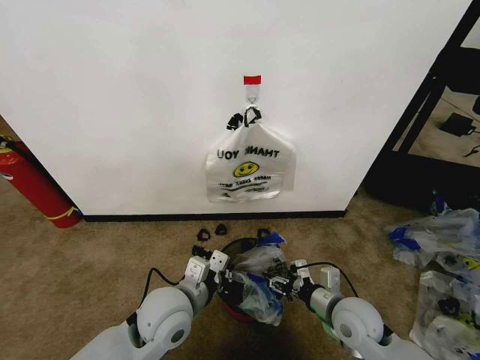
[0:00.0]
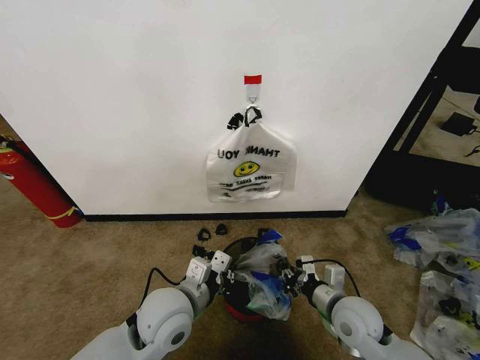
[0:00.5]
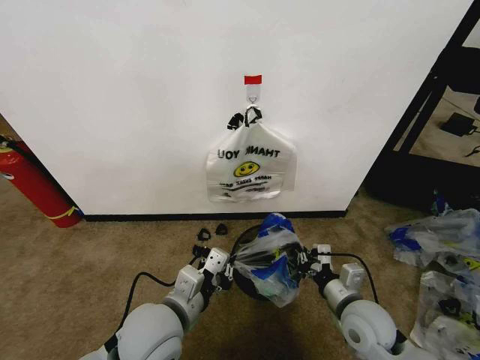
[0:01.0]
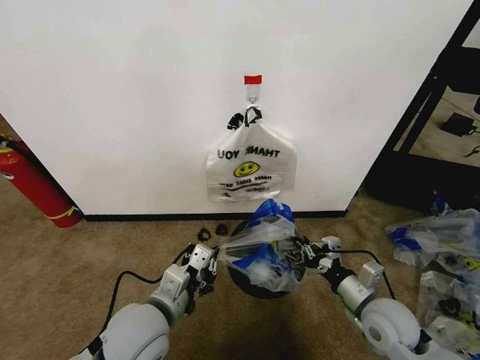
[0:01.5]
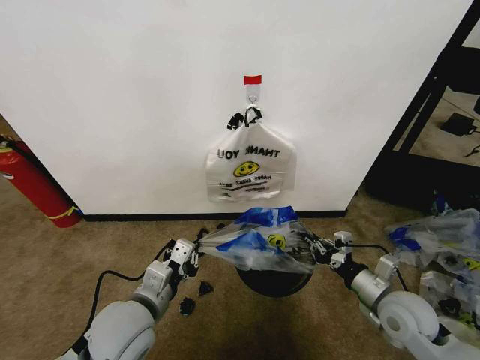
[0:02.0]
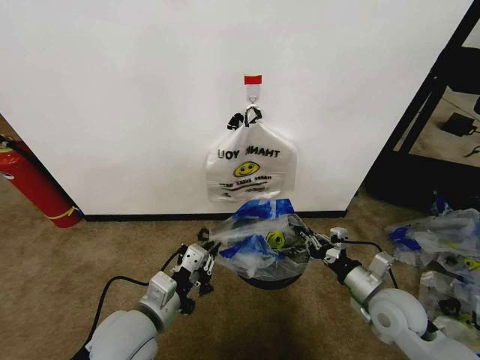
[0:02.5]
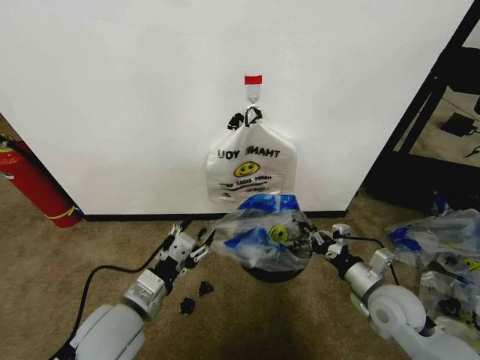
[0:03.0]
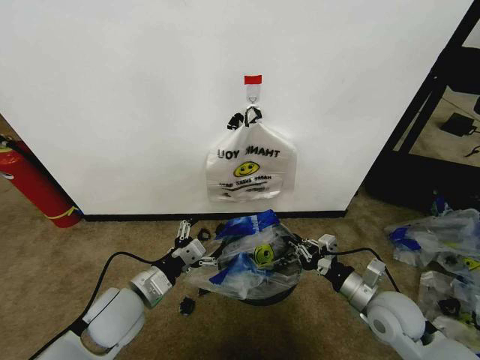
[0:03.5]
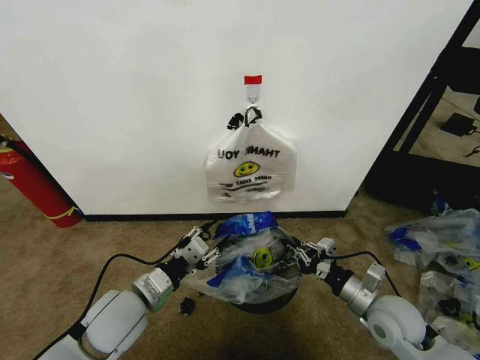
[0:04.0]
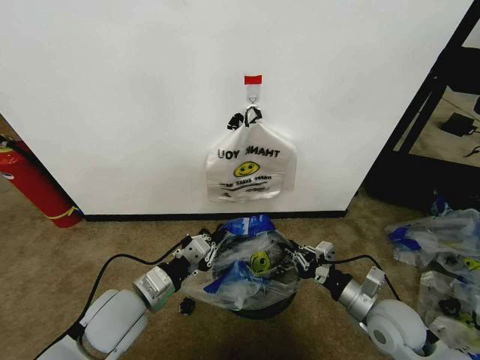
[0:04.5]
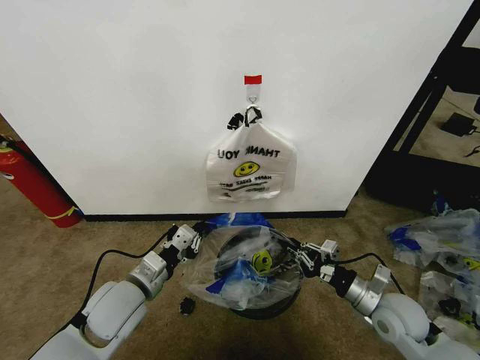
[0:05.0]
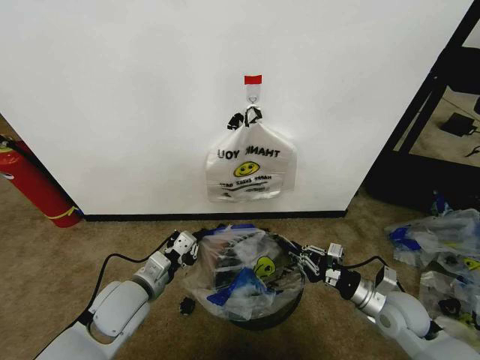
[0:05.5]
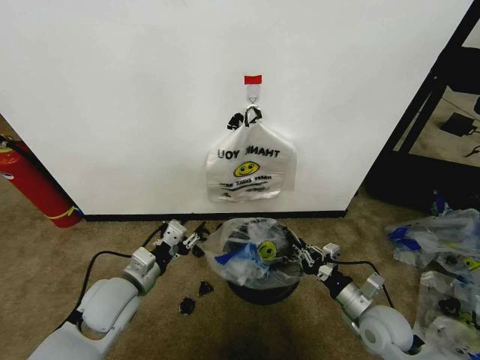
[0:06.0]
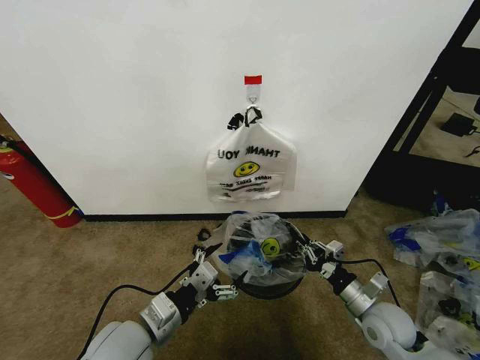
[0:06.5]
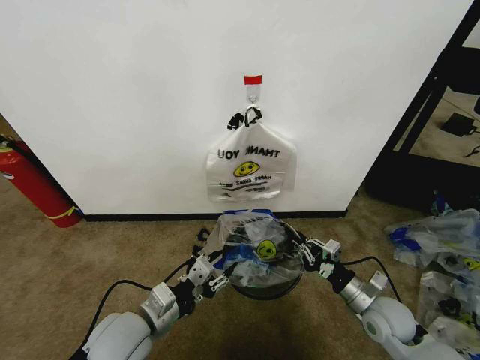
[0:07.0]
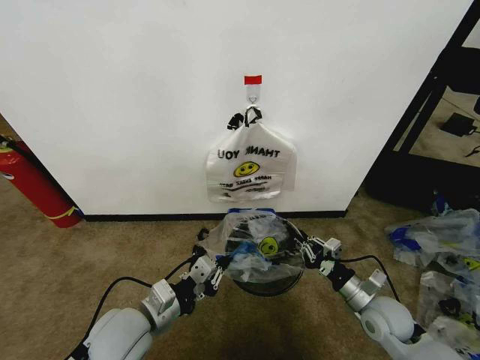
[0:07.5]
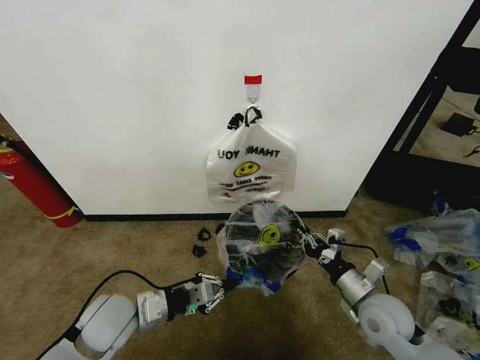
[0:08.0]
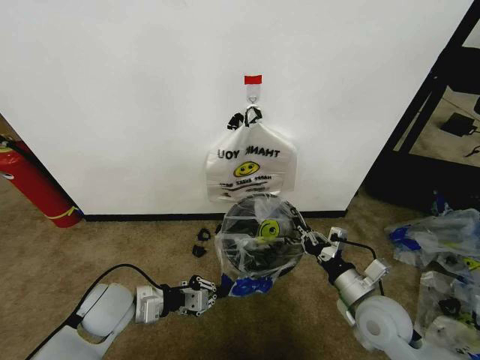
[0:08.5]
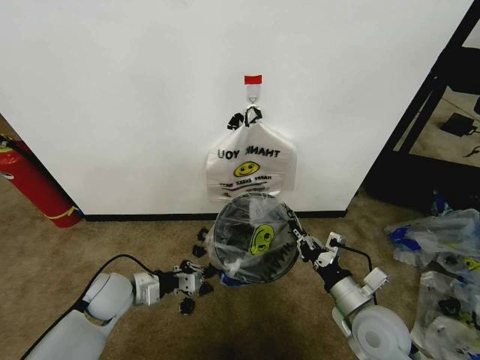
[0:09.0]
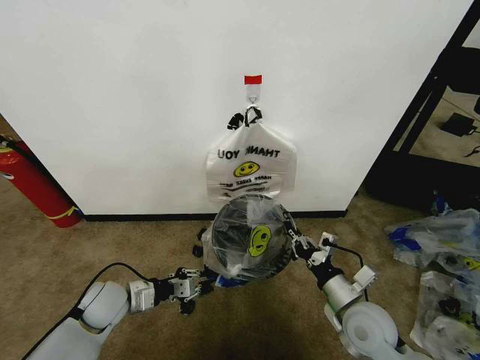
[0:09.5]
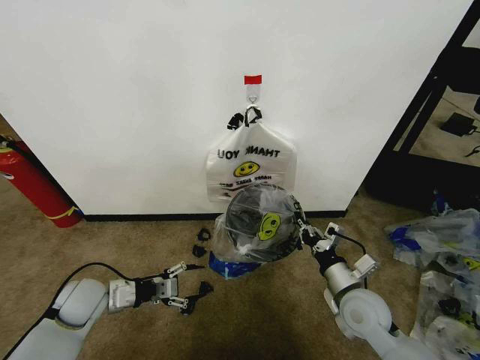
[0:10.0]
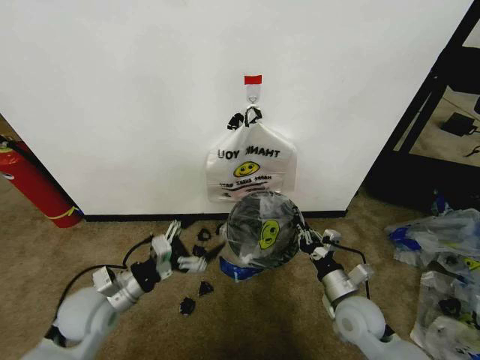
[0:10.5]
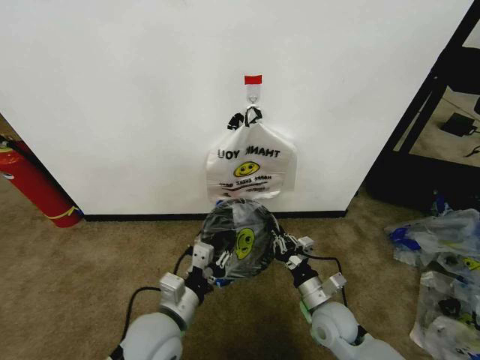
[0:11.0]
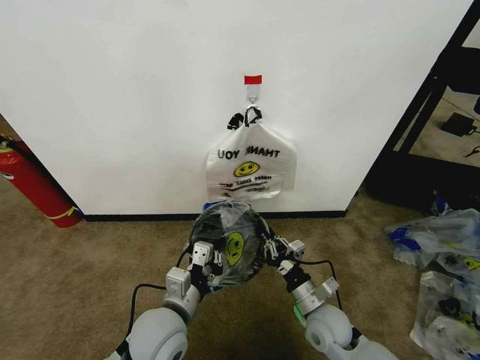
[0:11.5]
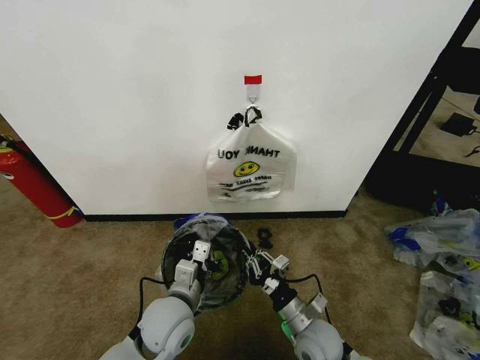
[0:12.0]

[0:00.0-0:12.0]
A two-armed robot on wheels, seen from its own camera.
Task of the whole recording: Pick up the garbage bag from the wall and place it over the trash bin.
0:00.0 to 0:02.0: The left gripper is displaced to the left by about 5 cm. The right gripper moves to the right, approximately 10 cm, and closes its fingers.
0:02.0 to 0:04.0: The left gripper opens its fingers.
0:04.0 to 0:06.0: The left gripper closes, then reopens.
0:06.0 to 0:08.0: The left gripper travels backward and back again, some 10 cm each way, and closes up.
0:08.0 to 0:10.0: The left gripper heads to the left and forward, covering about 10 cm, and opens.
0:10.0 to 0:12.0: The left gripper is displaced to the right by about 20 cm, and closes. Meanwhile the right gripper goes roughly 10 cm to the left and downward.

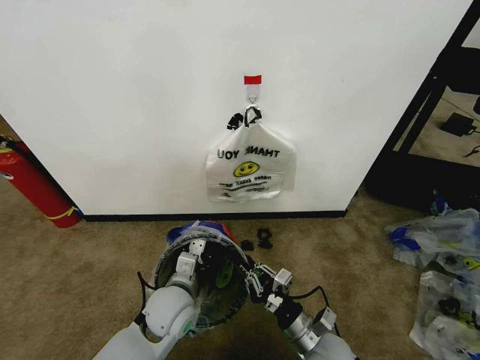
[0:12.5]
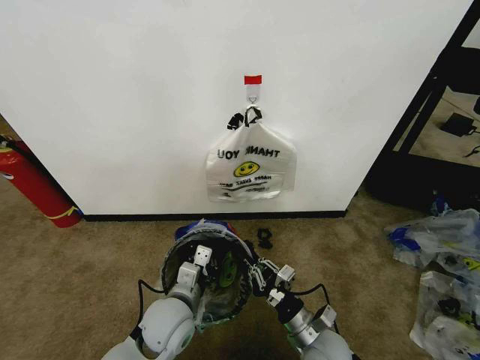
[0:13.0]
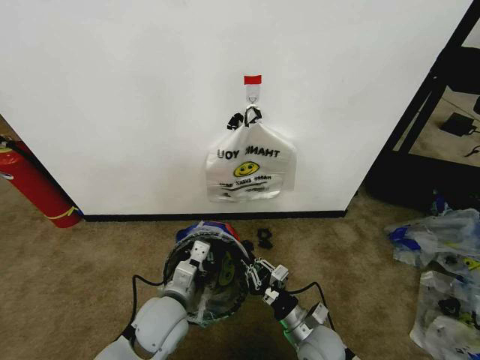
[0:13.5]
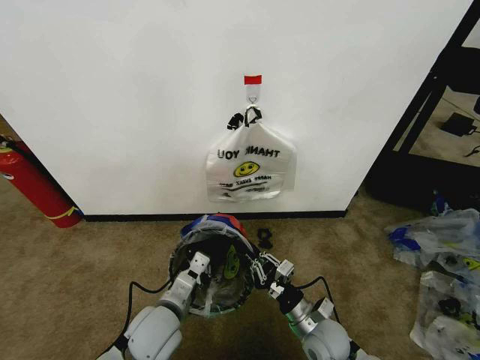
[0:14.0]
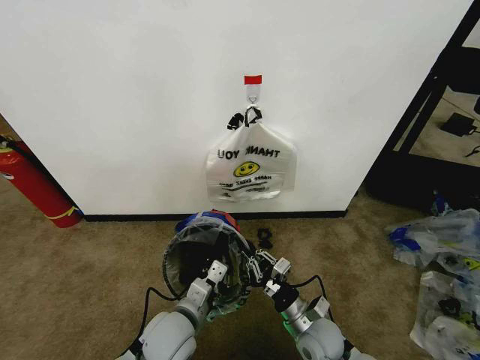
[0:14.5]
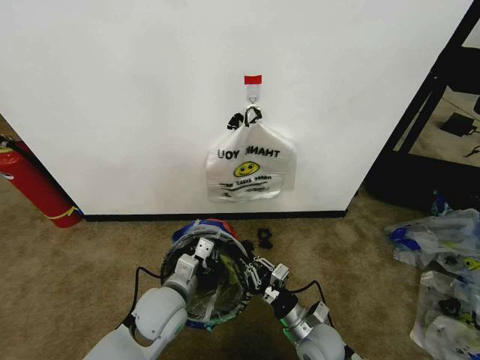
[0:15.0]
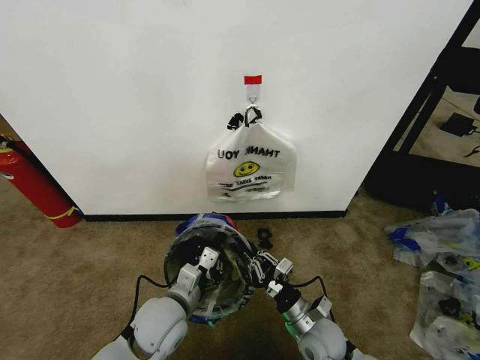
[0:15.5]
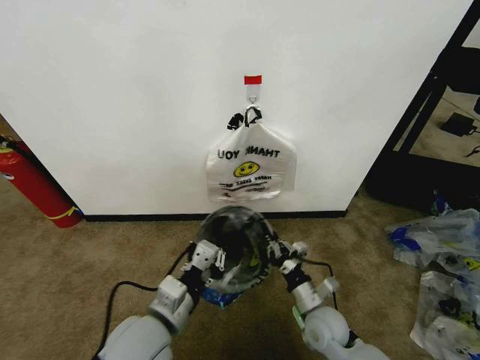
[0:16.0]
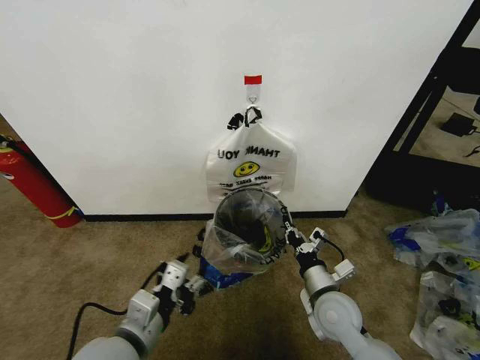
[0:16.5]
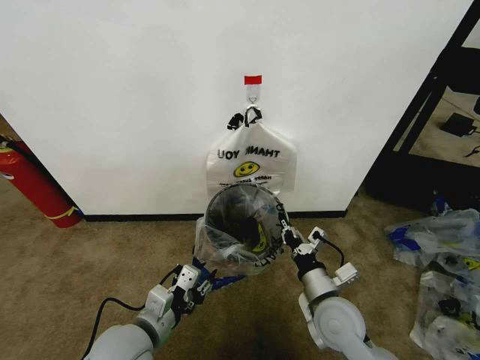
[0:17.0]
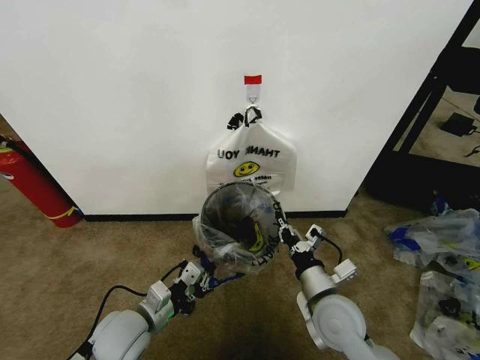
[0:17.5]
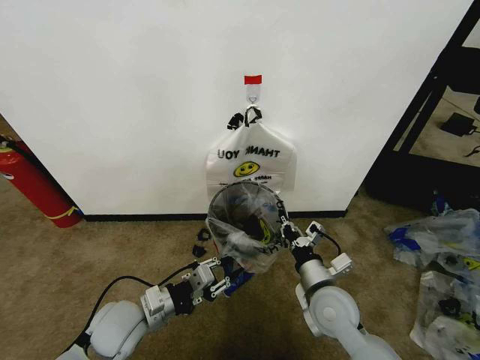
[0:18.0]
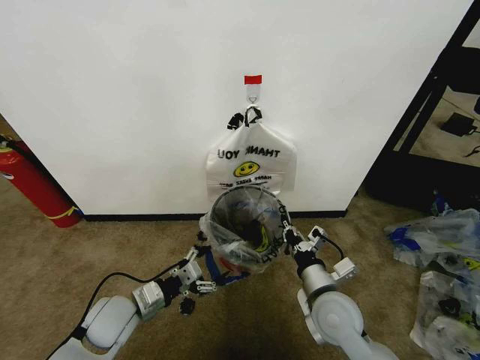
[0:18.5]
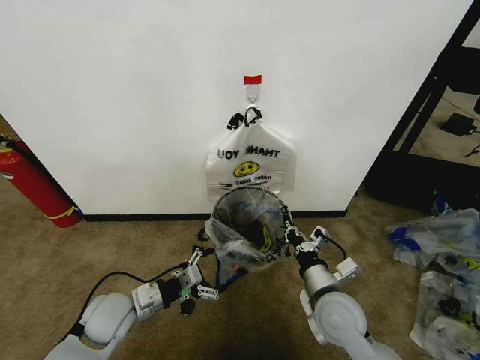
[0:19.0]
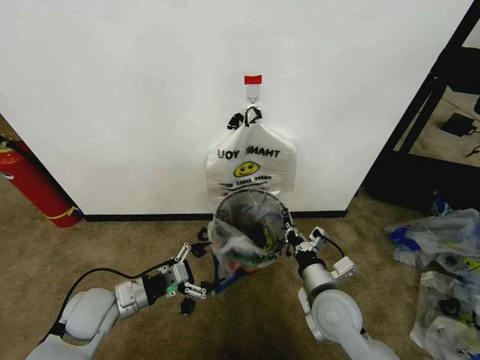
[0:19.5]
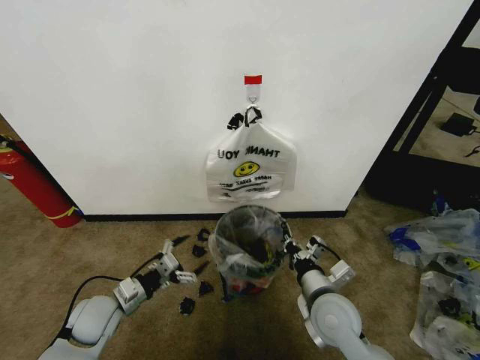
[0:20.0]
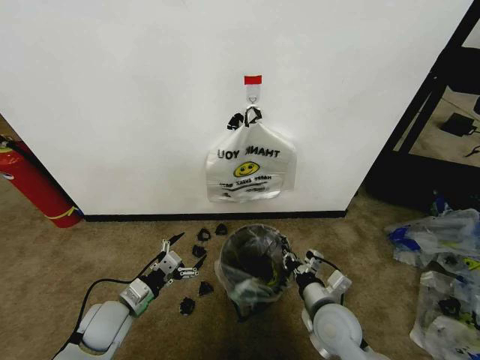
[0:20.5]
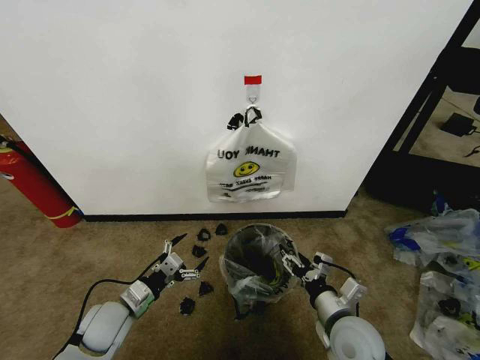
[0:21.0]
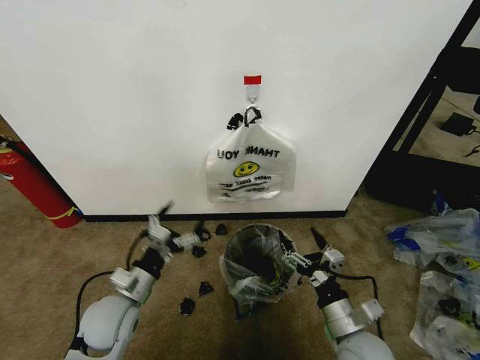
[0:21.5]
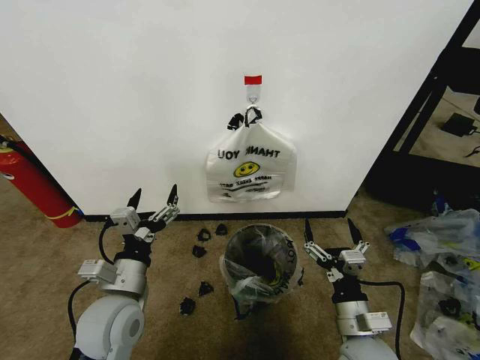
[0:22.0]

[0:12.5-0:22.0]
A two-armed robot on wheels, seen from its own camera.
Task of the whole recording: Pick up the garbage bag from the wall and place it over the trash bin.
0:12.5 to 0:14.5: The left gripper moves backward, approximately 5 cm.
0:14.5 to 0:16.5: The left gripper goes about 10 cm upward, to the left and backward, and opens. The right gripper travels upward by approximately 5 cm.
0:16.5 to 0:18.0: The left gripper shifts some 10 cm forward and downward.
0:18.0 to 0:20.0: The left gripper heads to the left, covering roughly 10 cm, and opens up.
0:20.0 to 0:22.0: The right gripper goes roughly 5 cm backward, and opens up; the left gripper shifts roughly 15 cm upward and to the right.
